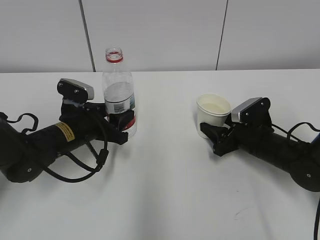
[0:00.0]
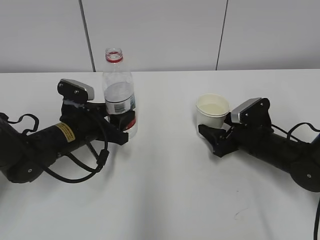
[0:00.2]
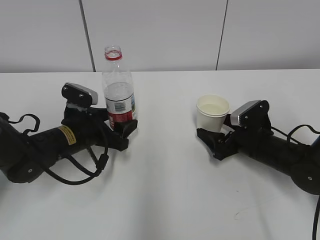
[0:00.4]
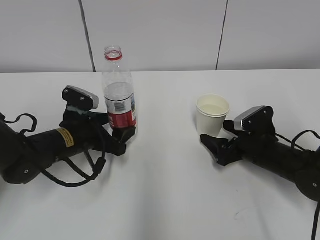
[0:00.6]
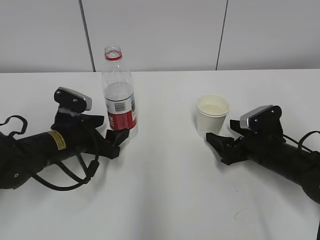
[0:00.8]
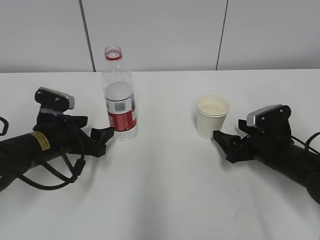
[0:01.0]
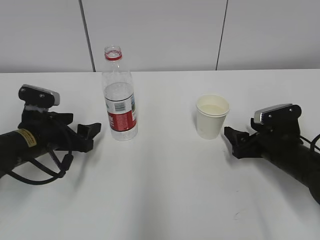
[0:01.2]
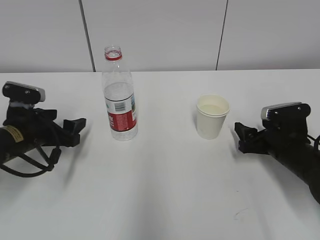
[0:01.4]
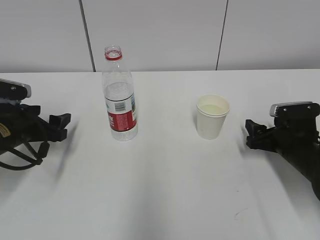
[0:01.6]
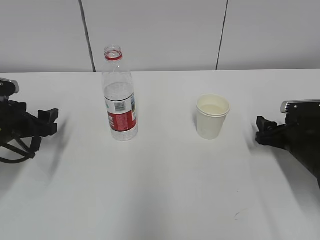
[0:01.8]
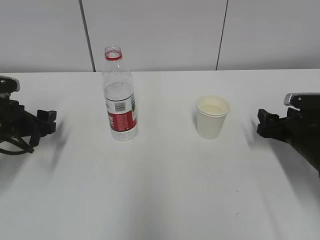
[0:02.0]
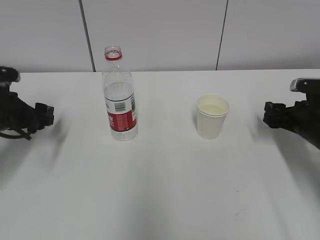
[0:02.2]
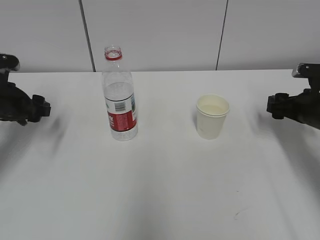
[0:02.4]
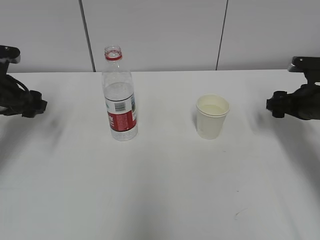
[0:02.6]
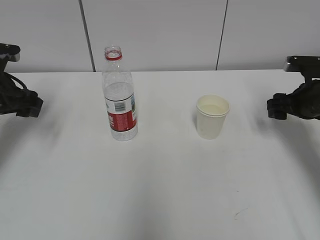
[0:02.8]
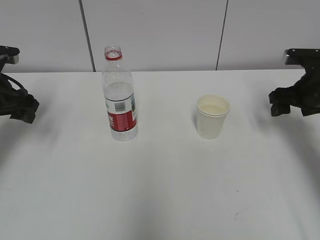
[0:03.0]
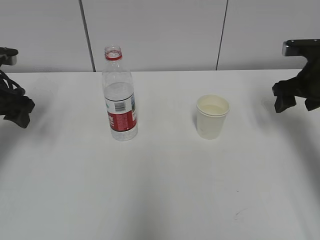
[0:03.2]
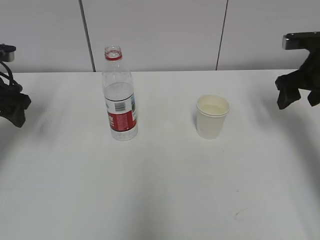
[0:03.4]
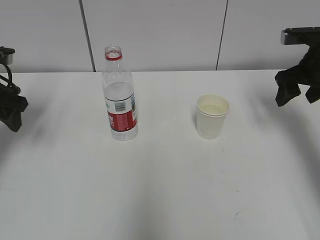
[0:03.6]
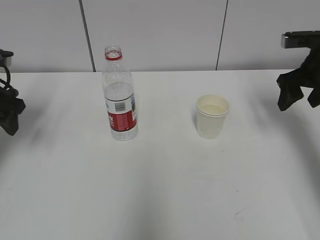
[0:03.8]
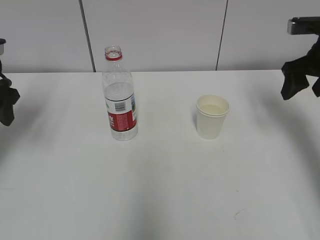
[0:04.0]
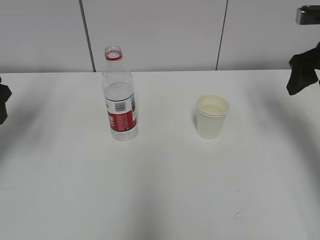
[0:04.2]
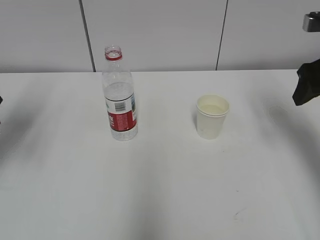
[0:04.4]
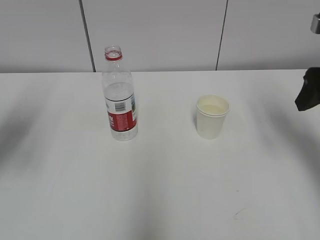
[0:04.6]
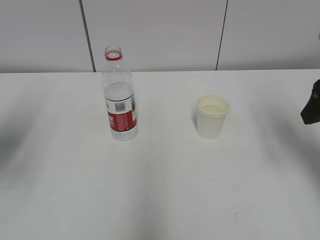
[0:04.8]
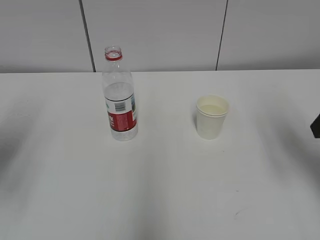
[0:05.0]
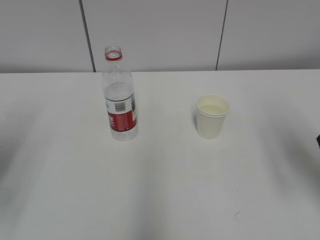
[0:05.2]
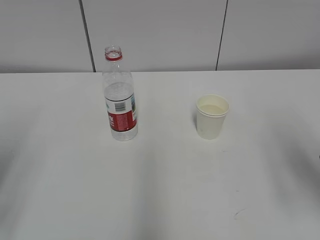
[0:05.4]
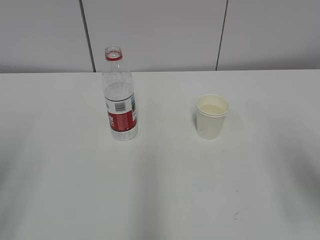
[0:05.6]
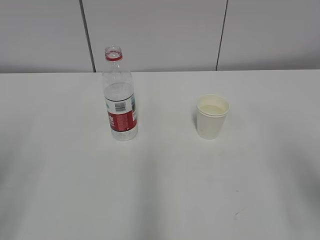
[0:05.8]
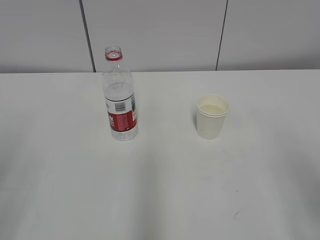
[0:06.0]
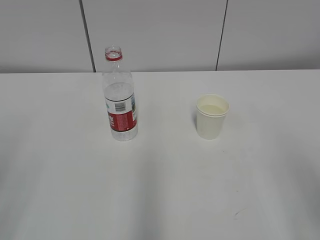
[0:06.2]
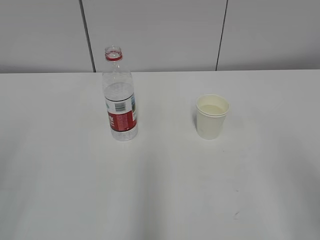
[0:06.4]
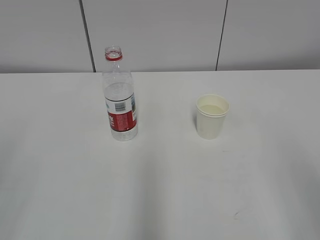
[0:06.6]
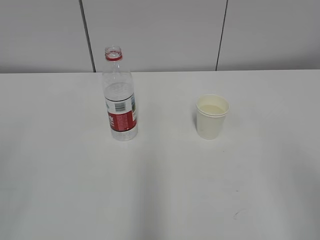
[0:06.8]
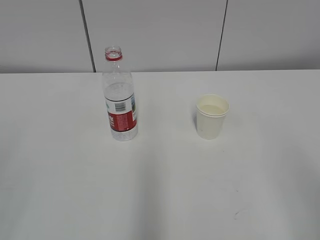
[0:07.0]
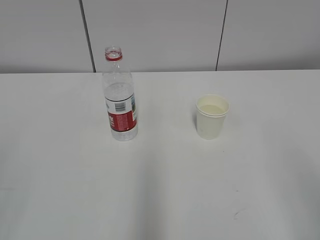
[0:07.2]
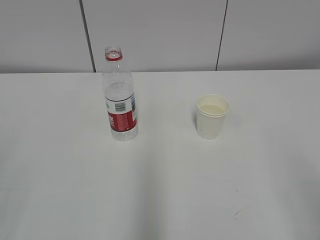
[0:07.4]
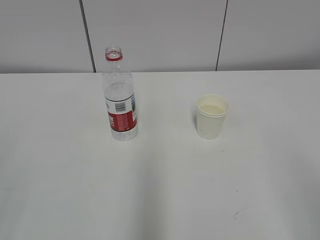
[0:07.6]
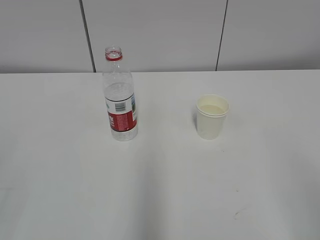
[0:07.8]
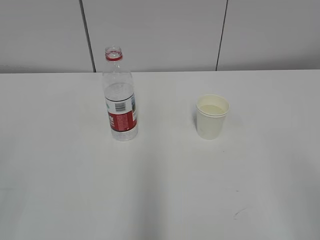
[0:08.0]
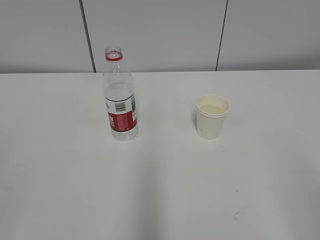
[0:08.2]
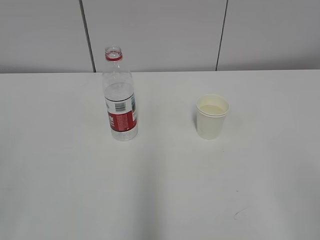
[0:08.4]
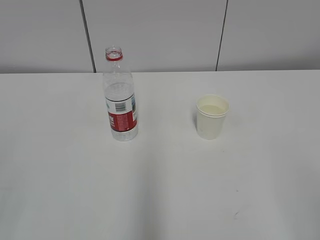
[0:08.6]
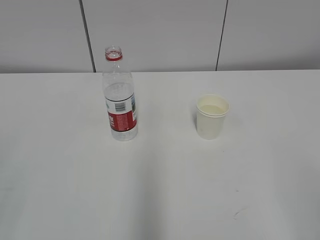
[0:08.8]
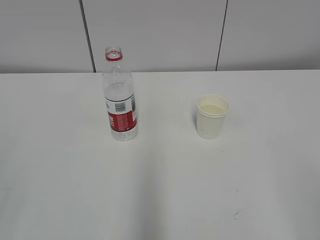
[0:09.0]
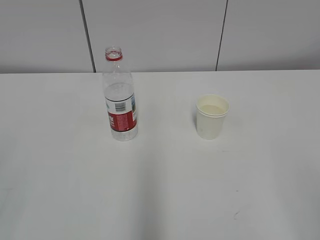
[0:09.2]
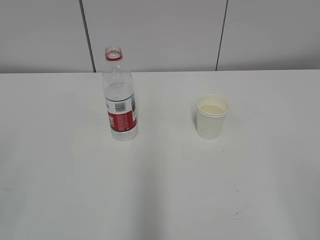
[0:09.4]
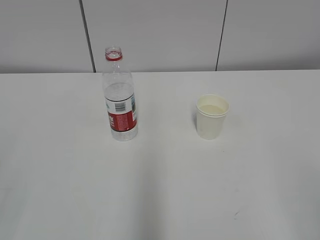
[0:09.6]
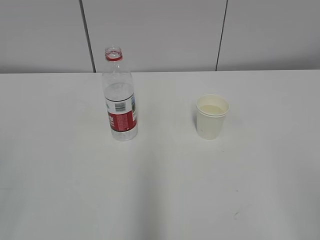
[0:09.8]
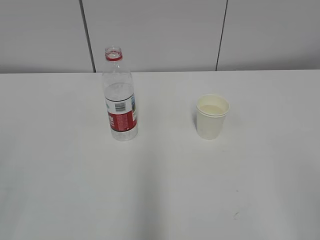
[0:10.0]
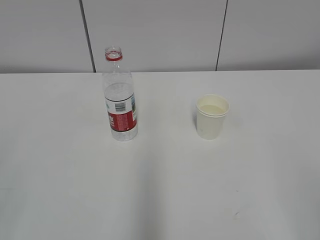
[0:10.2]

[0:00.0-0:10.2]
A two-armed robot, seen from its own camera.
0:00.0 to 0:01.4: The right gripper ends up approximately 5 cm from where it was, and opens, while the left gripper heads to the left, covering about 10 cm, and opens.
0:01.4 to 0:03.0: The right gripper travels upward, forward and to the right by some 15 cm; the left gripper moves upward and to the left, roughly 10 cm.
0:03.0 to 0:04.4: The left gripper heads upward and backward, covering some 10 cm. Meanwhile the right gripper shifts roughly 10 cm upward.
0:04.4 to 0:05.8: The grippers both shift backward by approximately 20 cm.
0:08.8 to 0:10.2: Both grippers stay put.

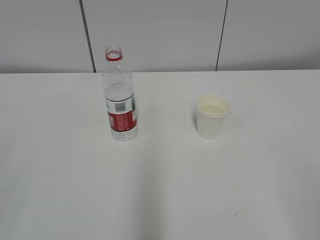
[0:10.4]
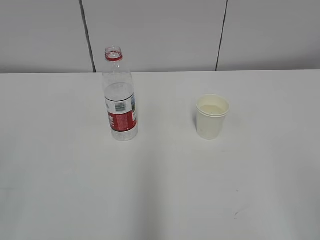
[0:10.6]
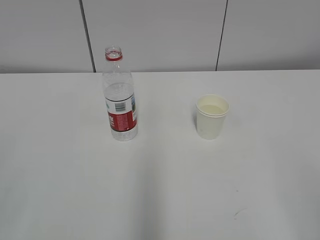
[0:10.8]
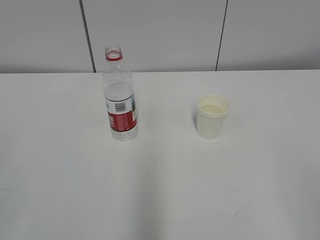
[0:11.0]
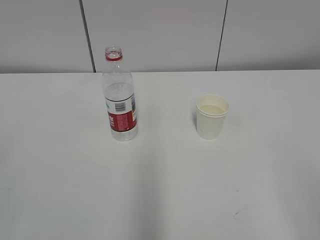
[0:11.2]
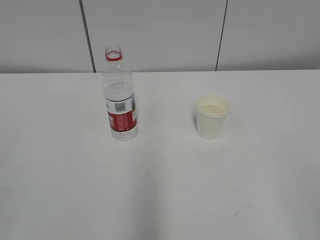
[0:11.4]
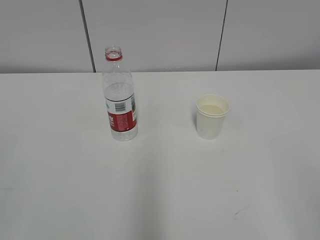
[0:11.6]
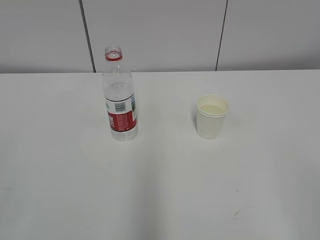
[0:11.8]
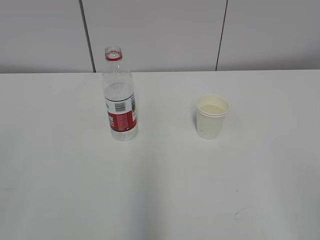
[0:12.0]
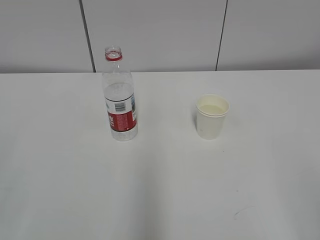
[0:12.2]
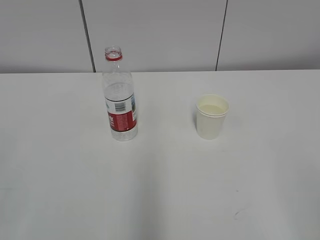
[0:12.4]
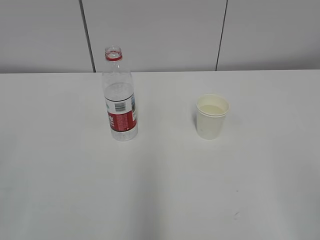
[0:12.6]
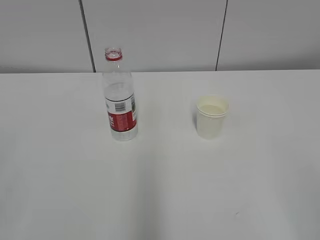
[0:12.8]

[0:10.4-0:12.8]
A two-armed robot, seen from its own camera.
0:10.4 to 0:12.8: Both grippers stay put.
